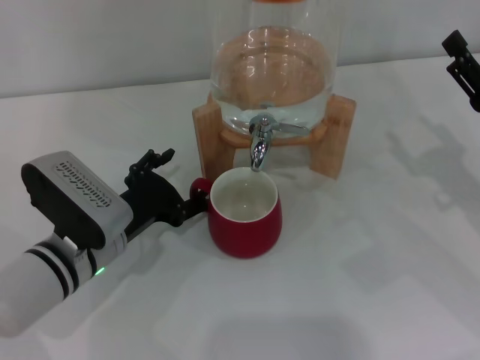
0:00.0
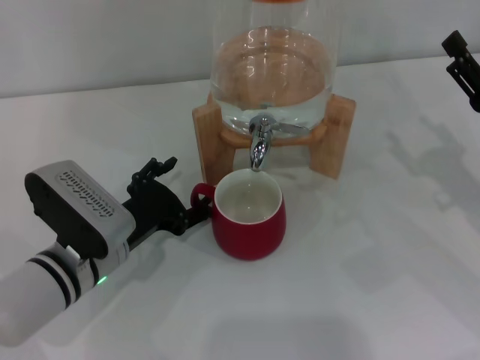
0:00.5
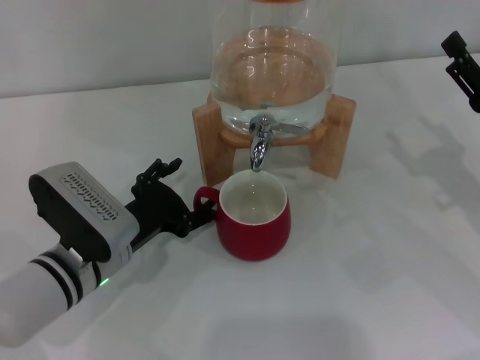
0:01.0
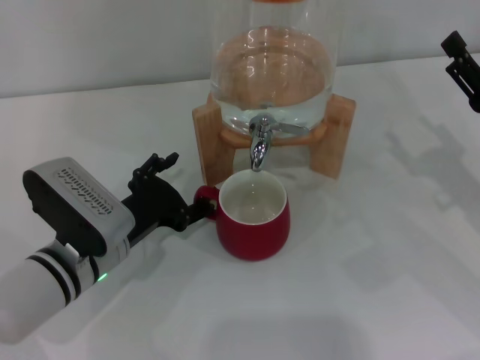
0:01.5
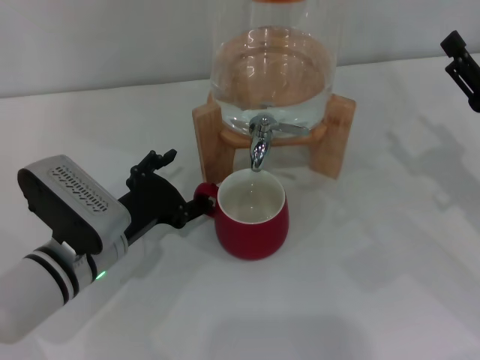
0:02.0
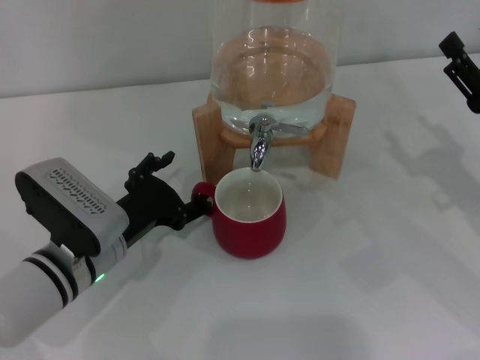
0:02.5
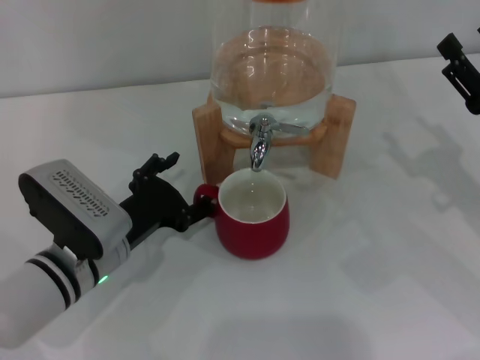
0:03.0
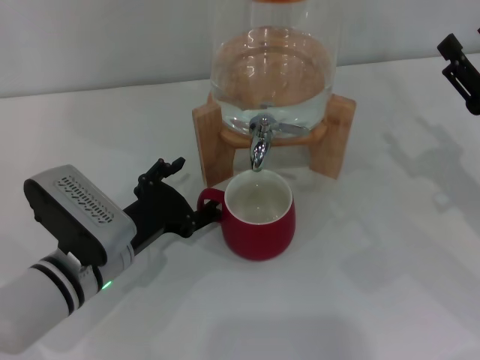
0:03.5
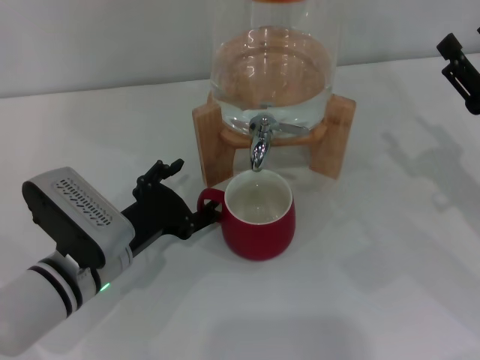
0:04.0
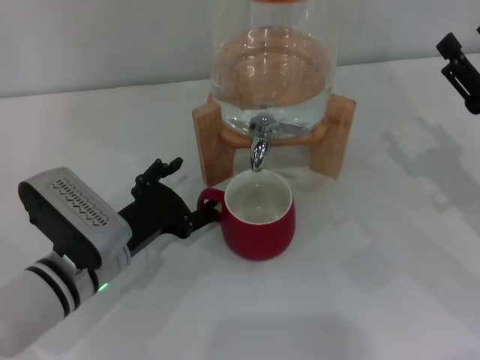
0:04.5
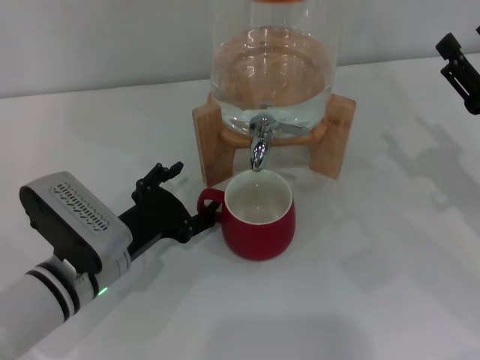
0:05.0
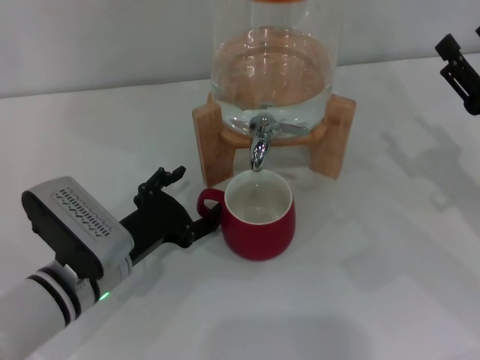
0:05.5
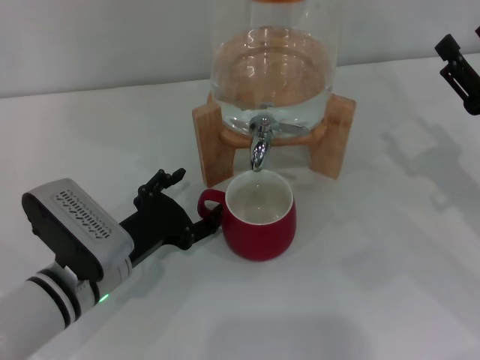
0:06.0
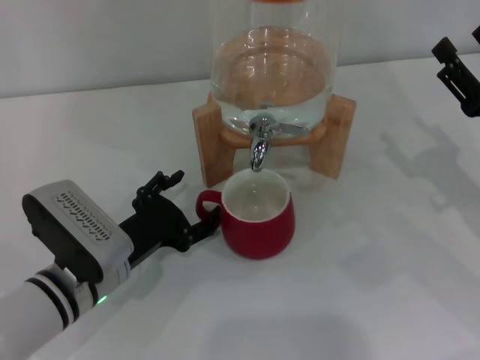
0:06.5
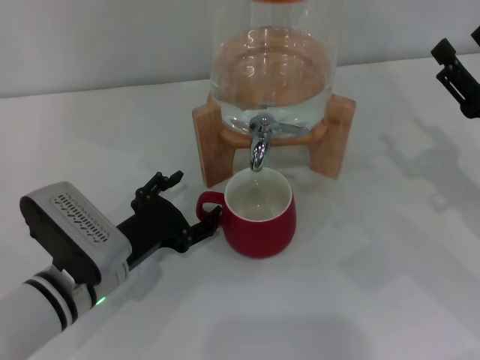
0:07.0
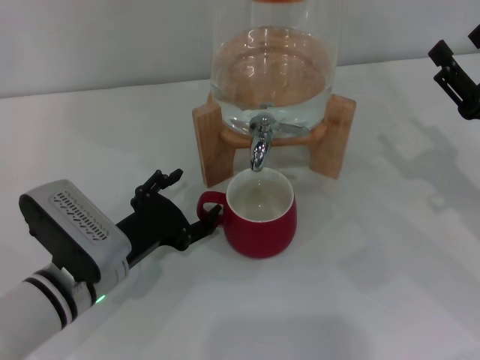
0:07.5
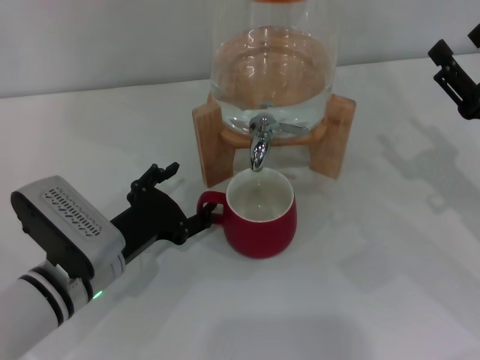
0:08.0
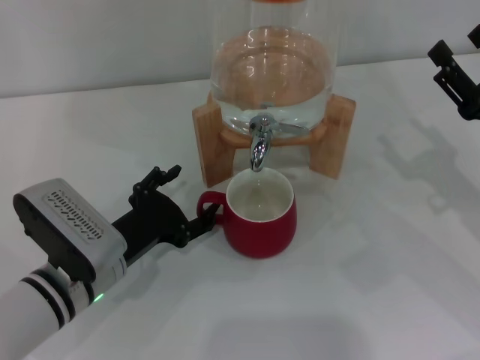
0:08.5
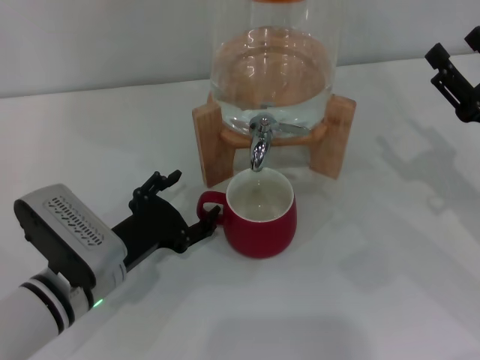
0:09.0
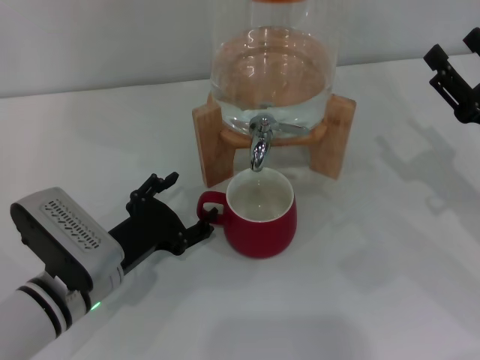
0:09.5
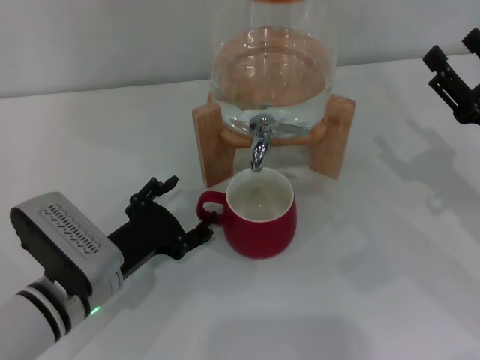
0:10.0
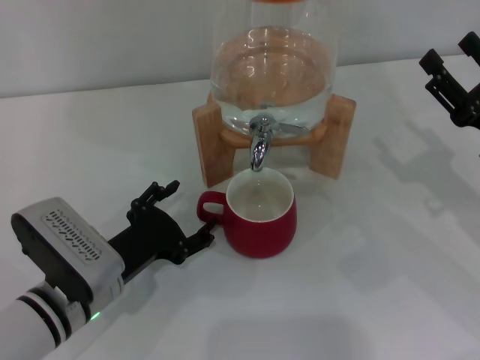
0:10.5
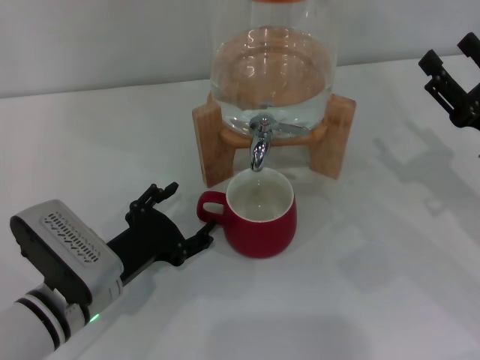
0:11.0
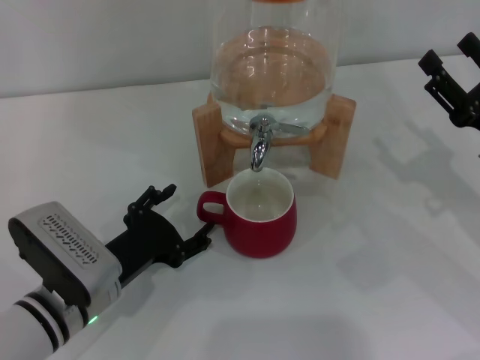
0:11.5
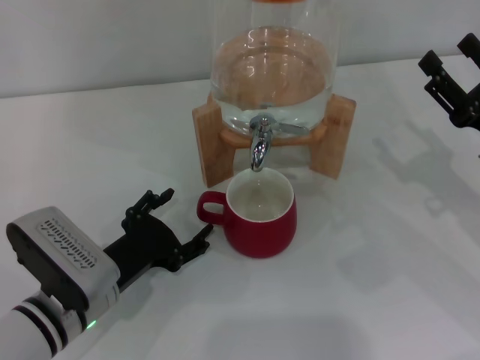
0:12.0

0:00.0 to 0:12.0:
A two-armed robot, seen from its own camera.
Task of the whole recording: the left gripper pick up the red cup and place it horizontally under the faucet, the right gripper turn on the faucet to fill the cup, and then turn off the faucet.
Step, 0:00.0 to 0:11.5: Move the cup beneath the water dispenser nozzle with the left gripper.
0:00.0 to 0:02.0: Both grippers stay put.
0:02.0 to 0:04.0: The two grippers keep their place.
0:04.0 to 0:08.0: Both grippers stay put.
0:08.0 to 0:10.0: Both grippers stay put.
0:10.0 to 0:12.0: Both grippers stay put.

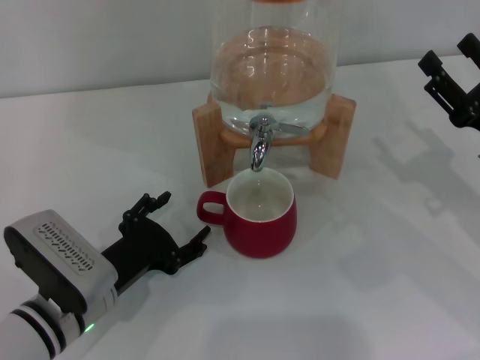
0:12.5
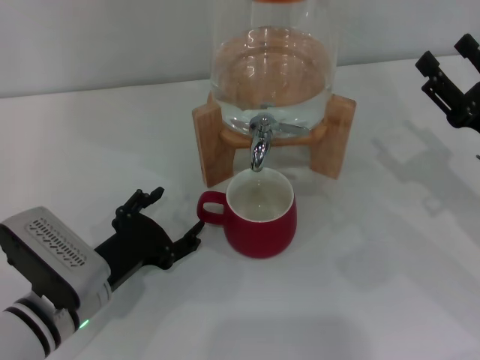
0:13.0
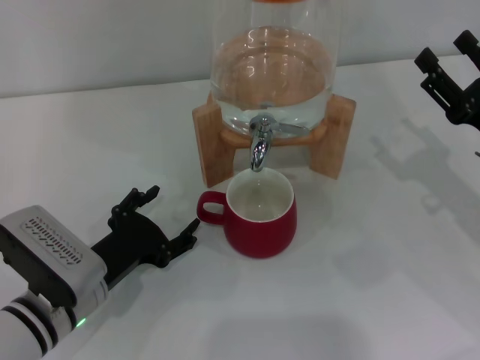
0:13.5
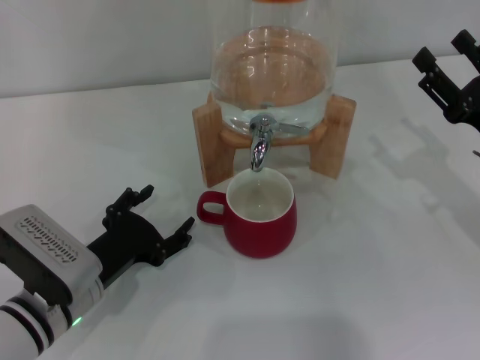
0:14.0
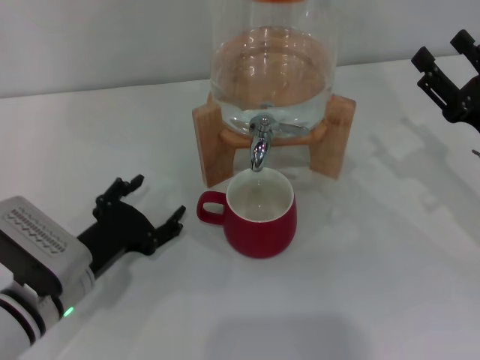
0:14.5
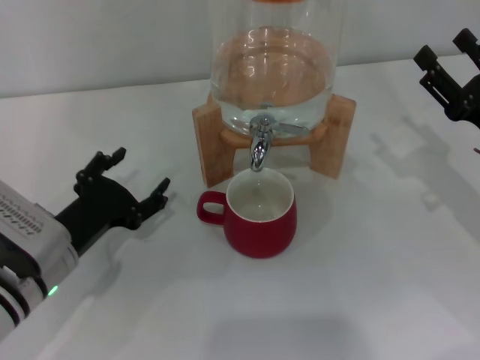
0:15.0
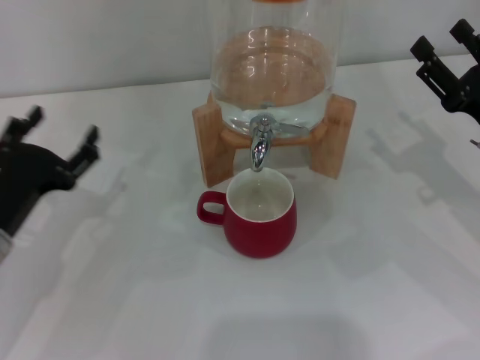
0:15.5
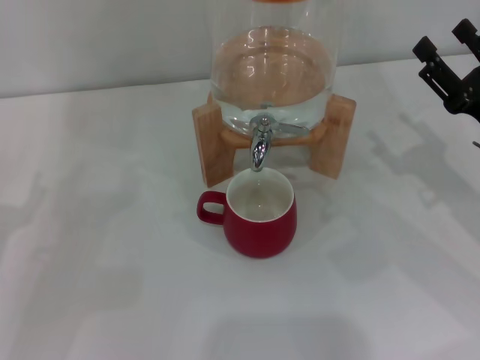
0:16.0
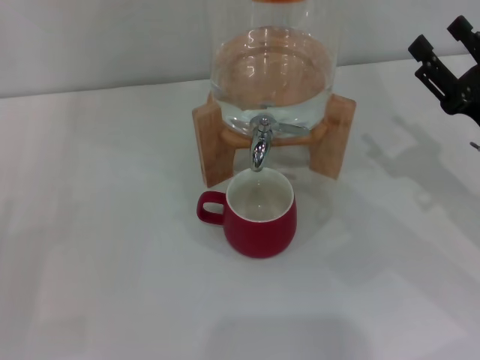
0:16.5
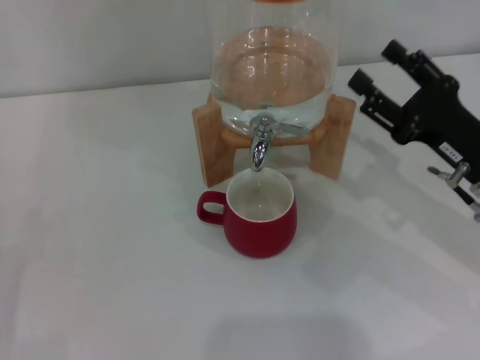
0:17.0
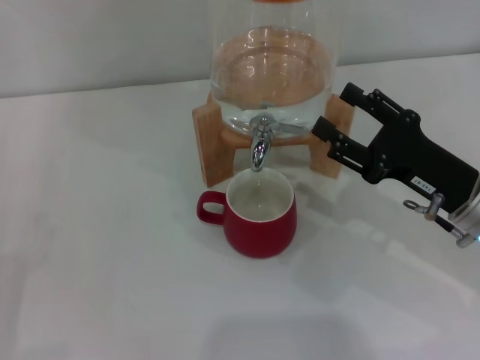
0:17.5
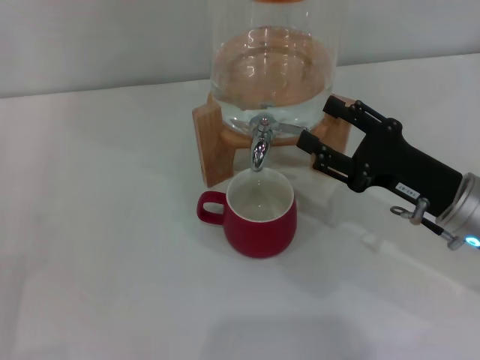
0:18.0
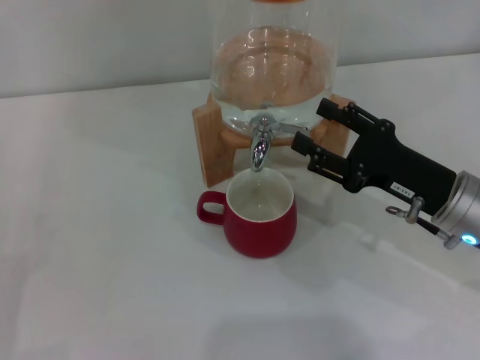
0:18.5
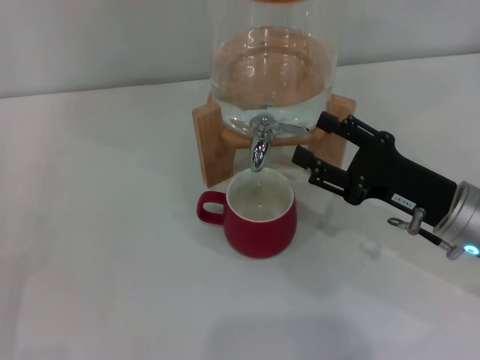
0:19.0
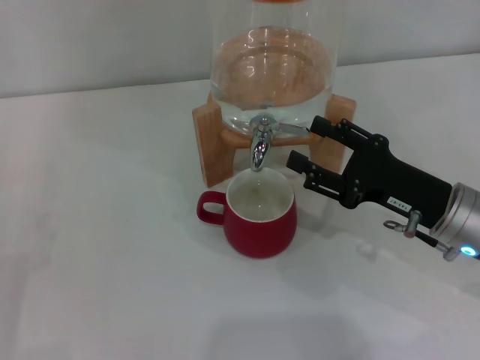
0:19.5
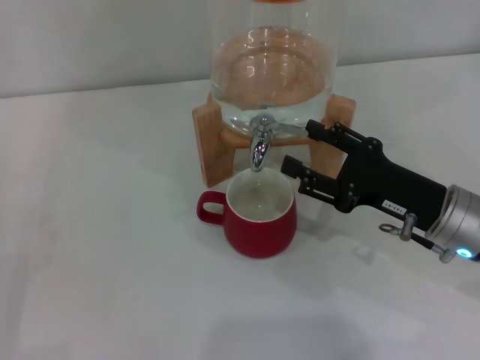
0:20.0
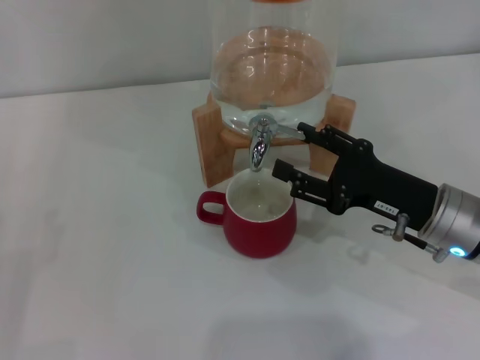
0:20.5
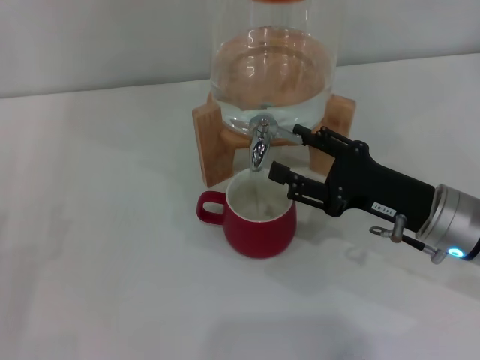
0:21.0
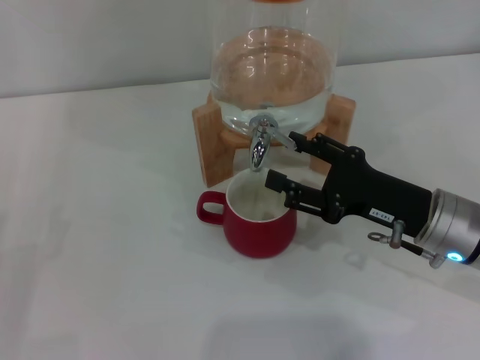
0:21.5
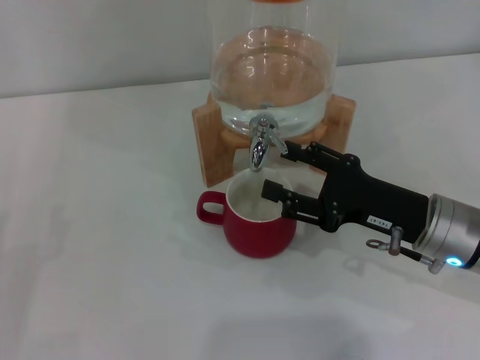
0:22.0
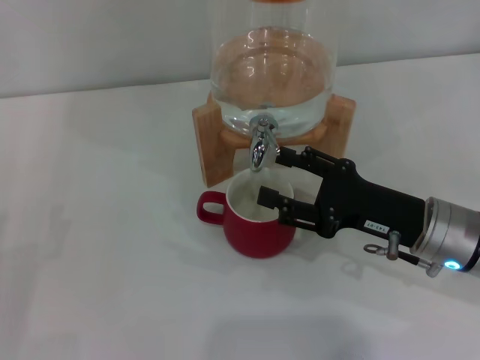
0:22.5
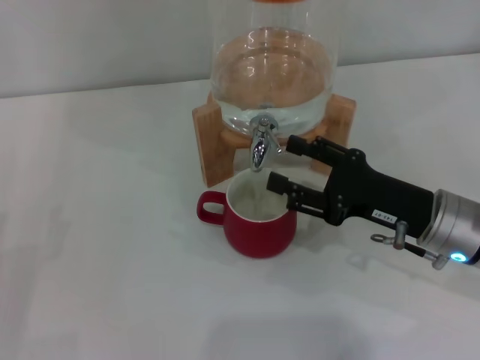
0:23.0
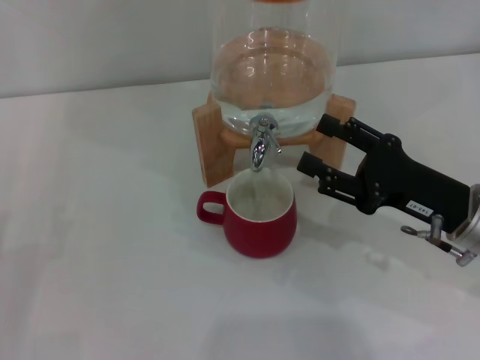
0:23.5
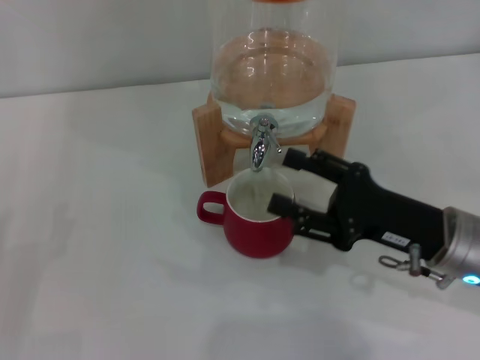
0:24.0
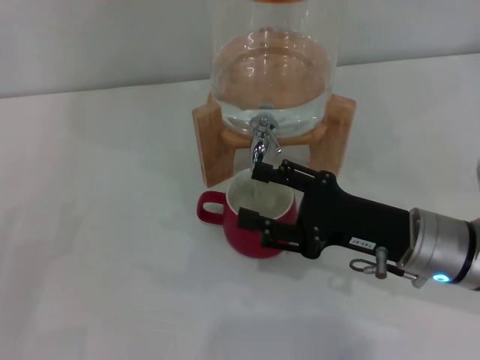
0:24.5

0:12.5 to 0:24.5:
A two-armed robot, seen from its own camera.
Task of the whole recording: the left gripper pick up the red cup and place it horizontally under the faucet, the right gripper turn on the faucet to fill the cup, and then turn off the faucet.
Step, 0:12.5 to 0:22.5: Open the dispenser valve and fill the cup with water with the right gripper.
0:12.5 to 0:14.5: There are only small adjustments of the grippers.
0:14.5 to 0:16.5: The left gripper goes some 15 cm to the left.
0:16.5 to 0:18.5: The right gripper travels to the left by approximately 5 cm.
0:18.5 to 0:24.5: The grippers stay close to where they were, moving slightly.

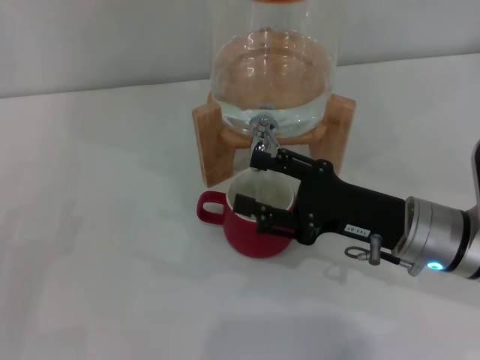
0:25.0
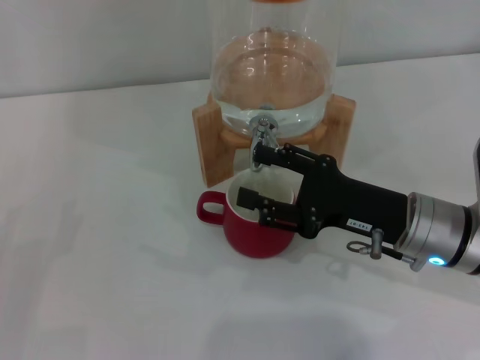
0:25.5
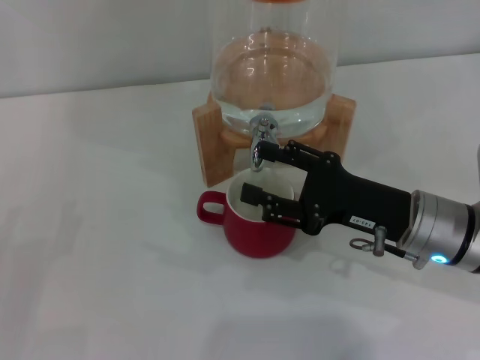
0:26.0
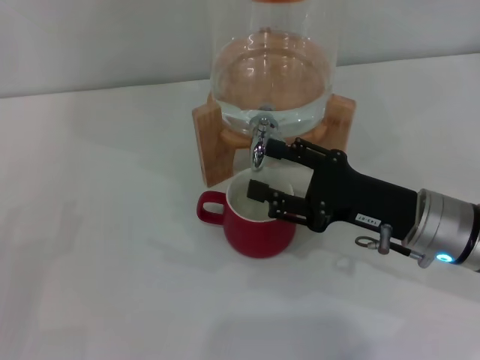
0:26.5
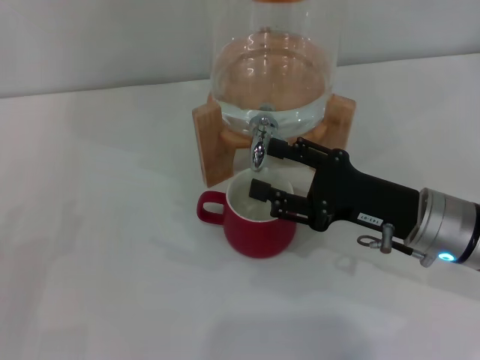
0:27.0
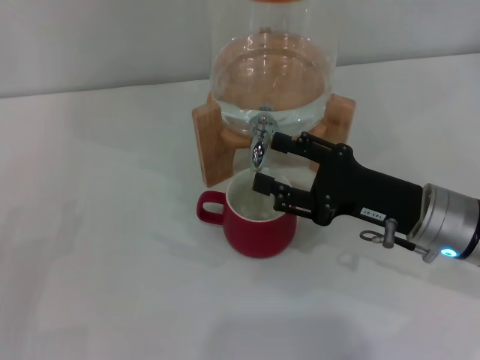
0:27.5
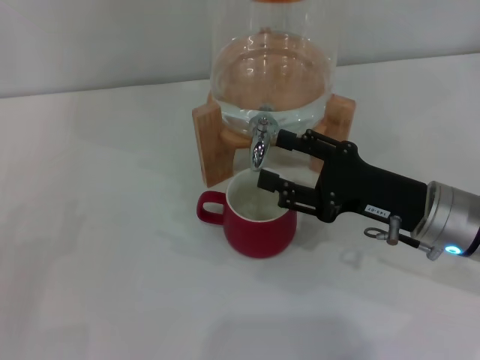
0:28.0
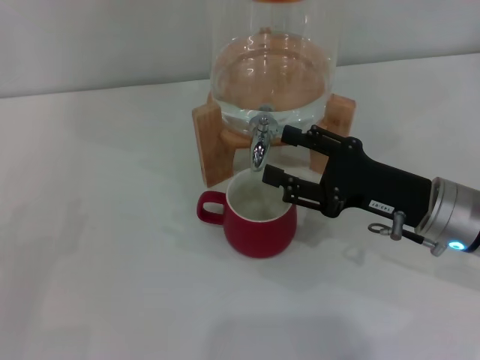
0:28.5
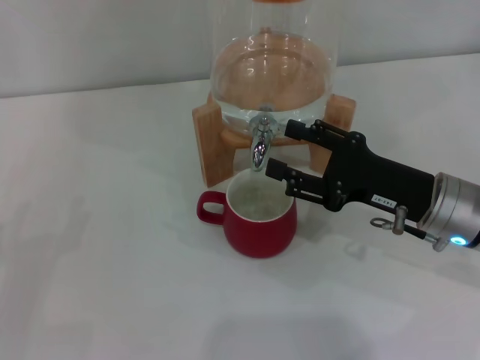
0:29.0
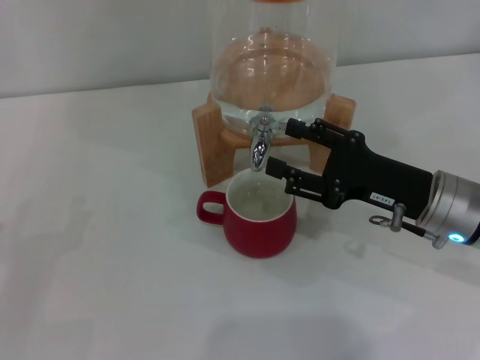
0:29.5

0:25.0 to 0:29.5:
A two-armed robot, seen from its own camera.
Task of the whole recording: the left gripper pick up the red cup and place it horizontally under the faucet, the right gripper turn on the faucet to fill the cup, and then turn off the faucet.
0:25.0 to 0:27.0: Neither gripper changes place.
0:27.0 to 0:29.5: The grippers move only a little.
